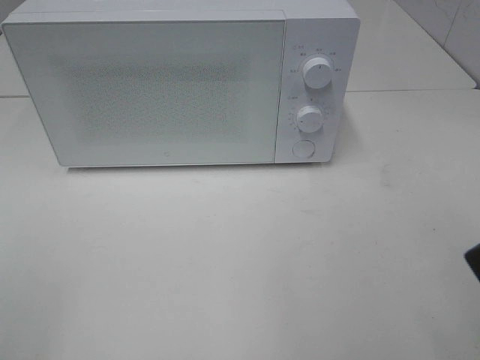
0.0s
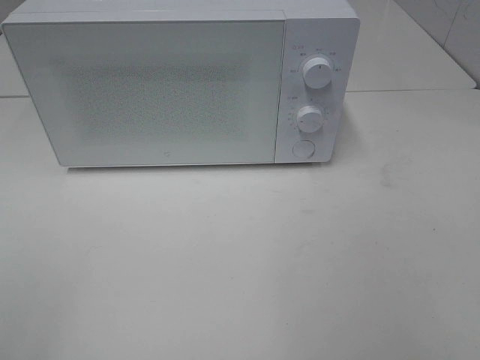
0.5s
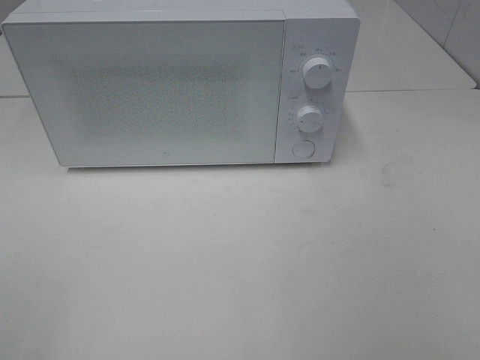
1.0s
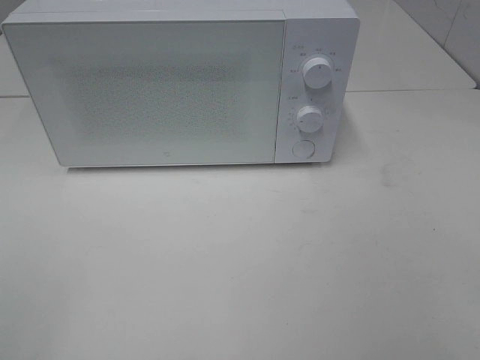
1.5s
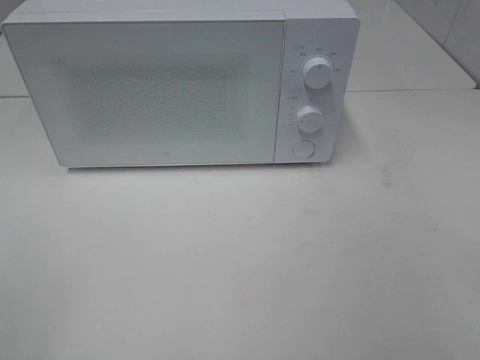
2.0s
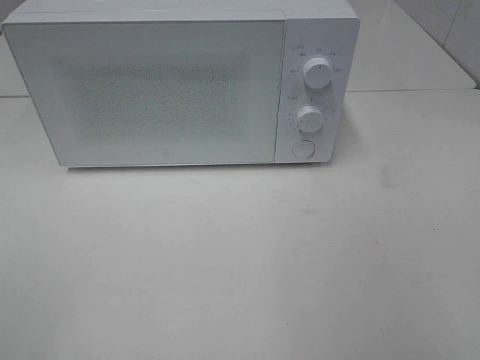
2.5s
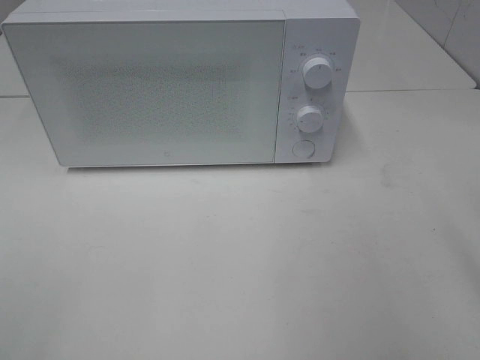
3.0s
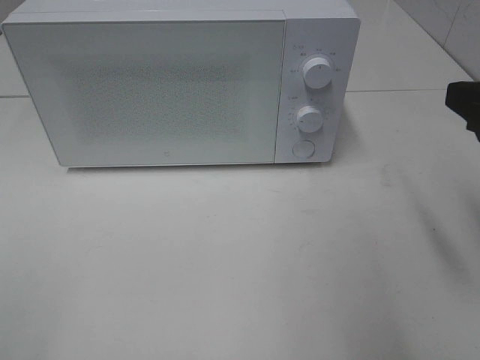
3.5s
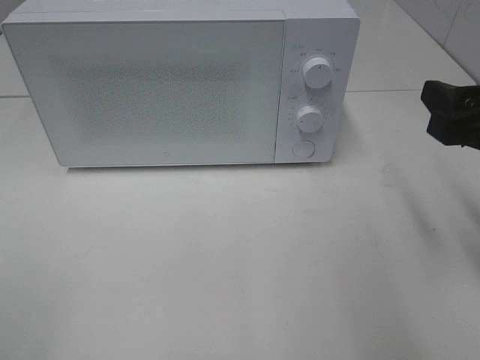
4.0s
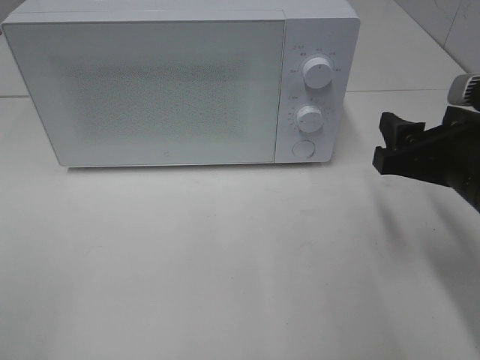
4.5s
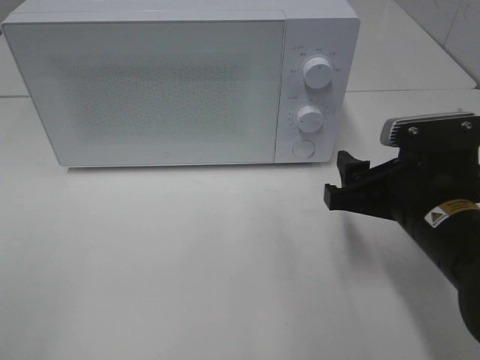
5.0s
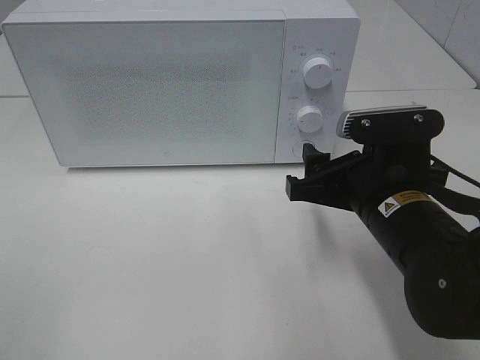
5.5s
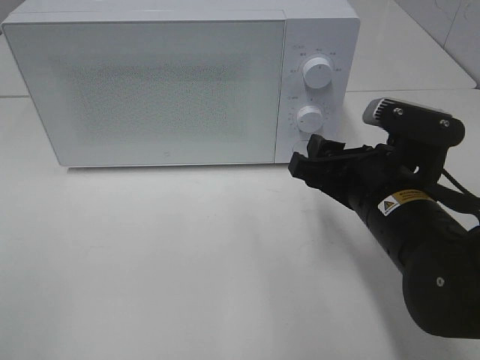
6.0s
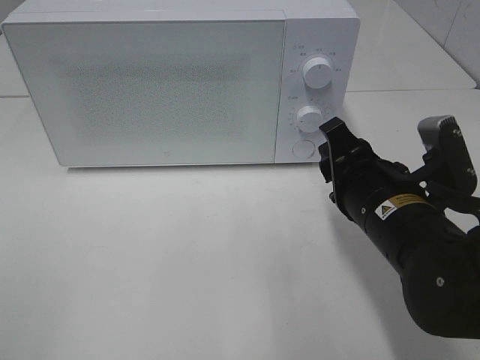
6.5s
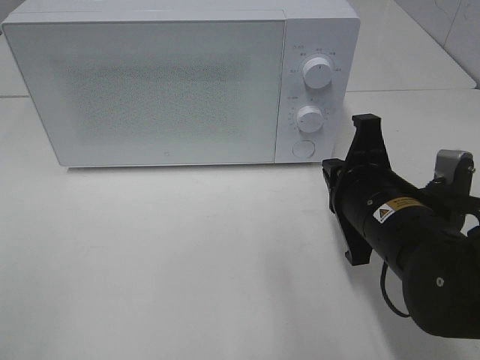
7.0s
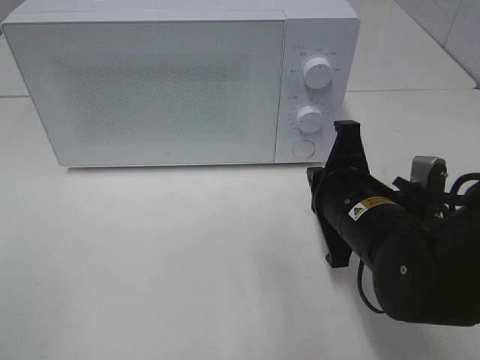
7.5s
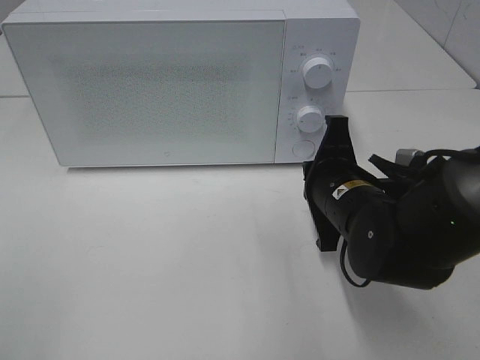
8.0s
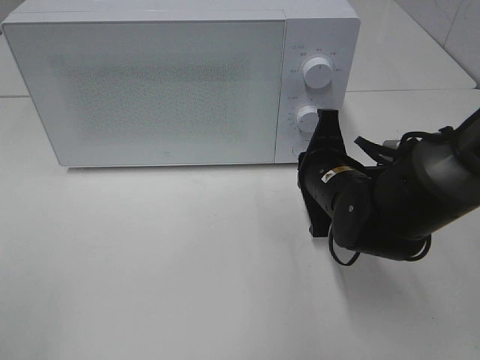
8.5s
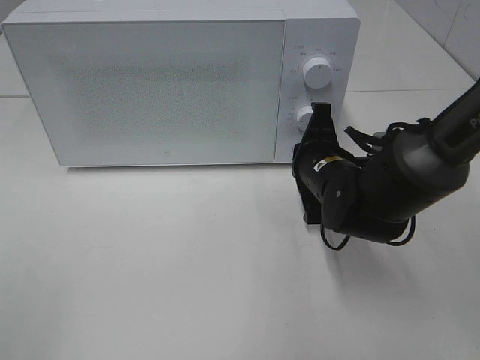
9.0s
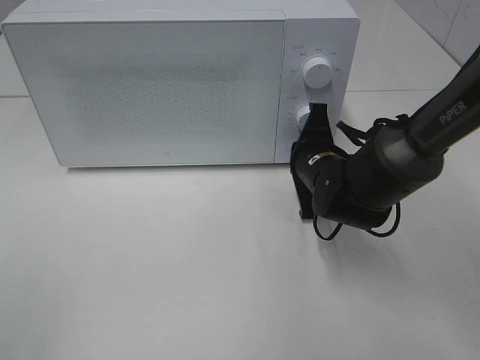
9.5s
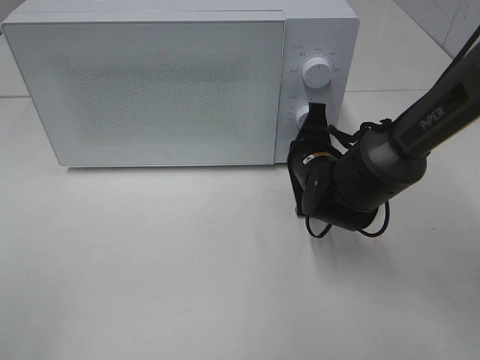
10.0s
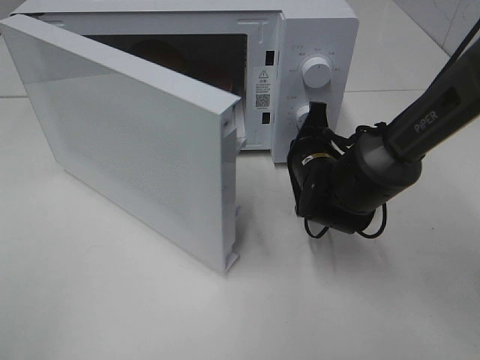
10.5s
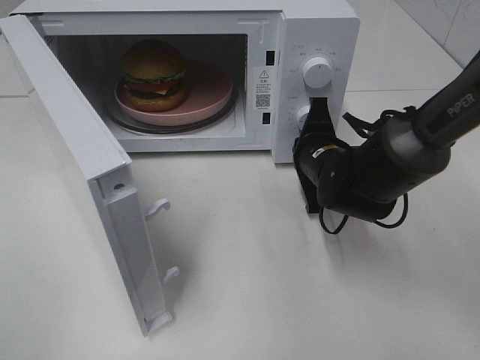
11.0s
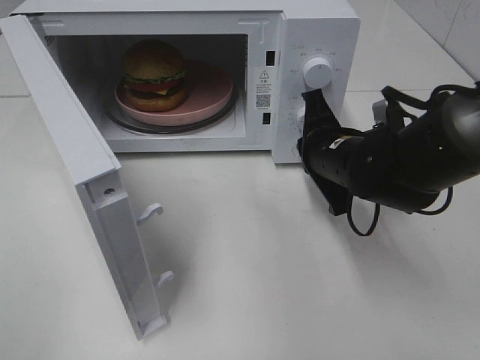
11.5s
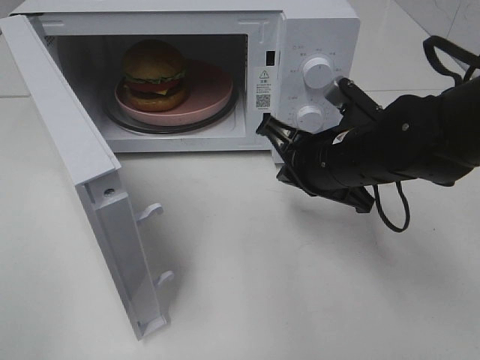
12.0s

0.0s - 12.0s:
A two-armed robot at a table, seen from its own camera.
Task of the whole recording: Heat the burger.
Step, 0.0s - 11.5s: Right hand: press the switch.
2.0s - 4.0s: The right gripper moves forward, some 20 cm.
4.0s - 6.0s: The right gripper is displaced to the left and downward by roughly 15 cm.
6.0s - 8.0s: The right gripper moves about 5 cm, and closes.
8.0s - 10.0s: The right gripper is displaced forward by approximately 10 cm.
10.0s - 12.0s: The right gripper travels upward and backward by some 10 cm.

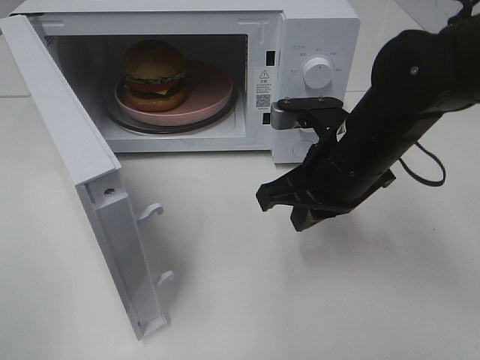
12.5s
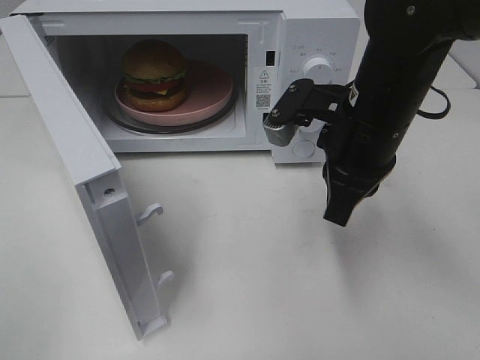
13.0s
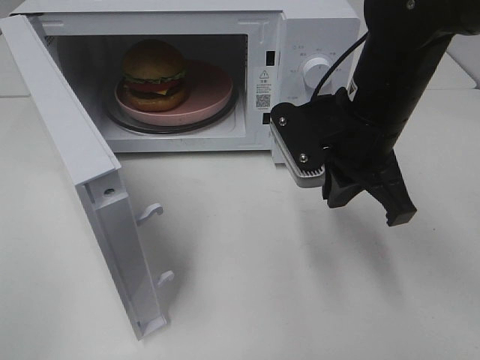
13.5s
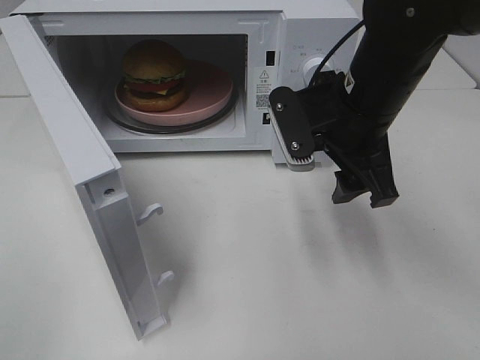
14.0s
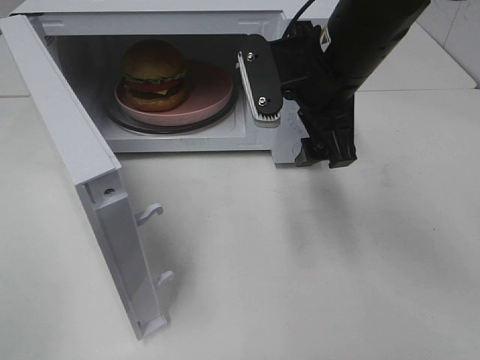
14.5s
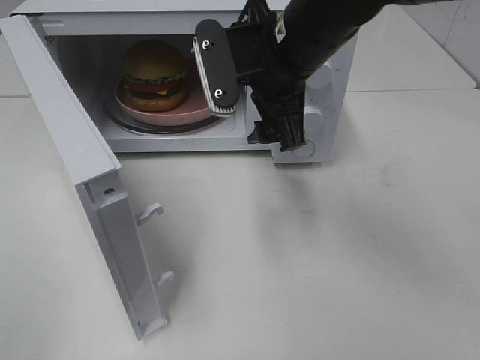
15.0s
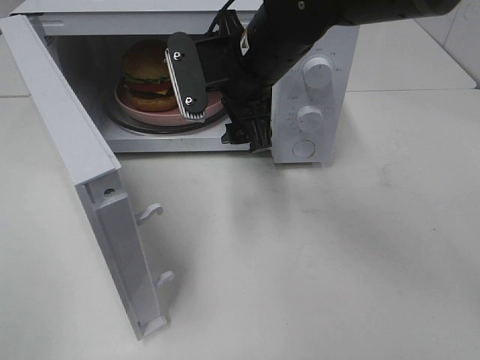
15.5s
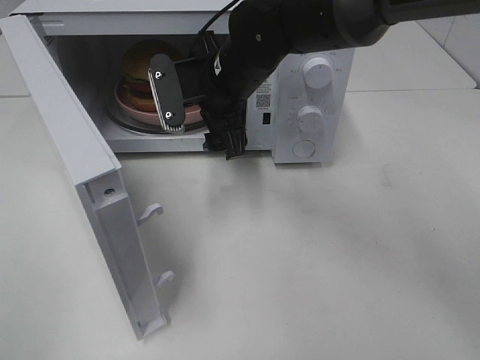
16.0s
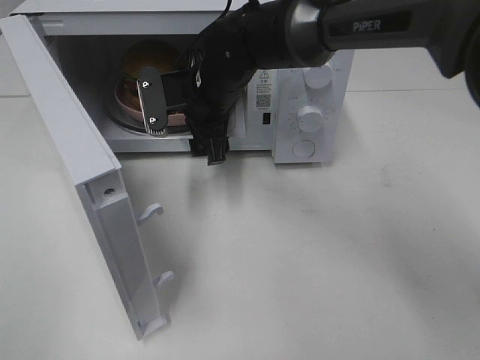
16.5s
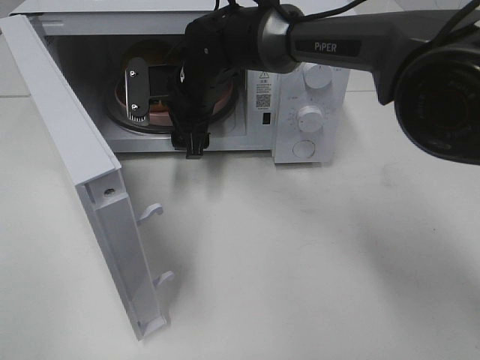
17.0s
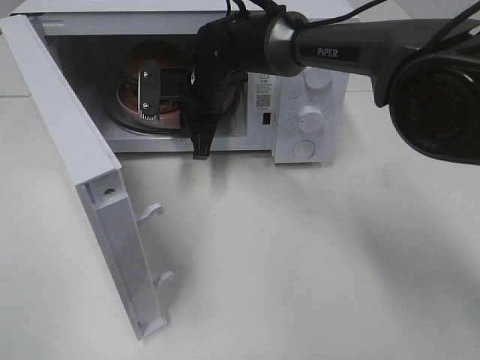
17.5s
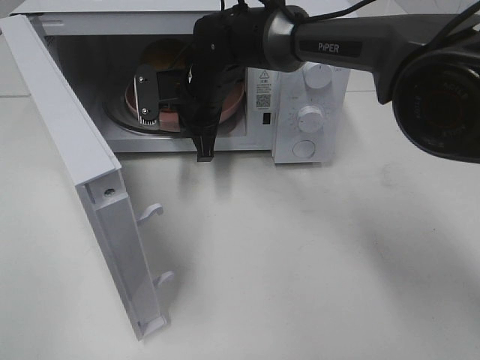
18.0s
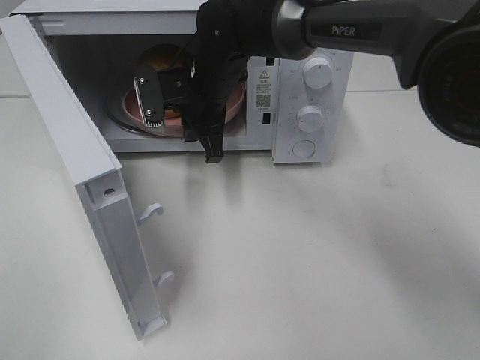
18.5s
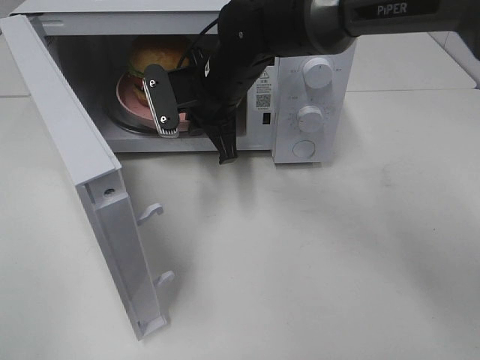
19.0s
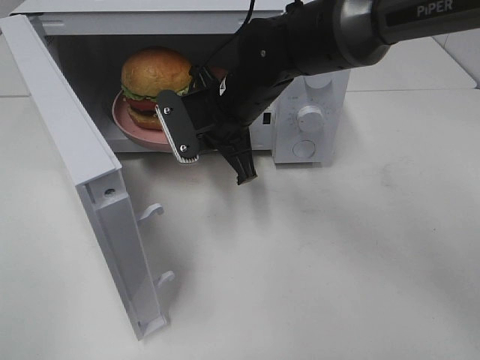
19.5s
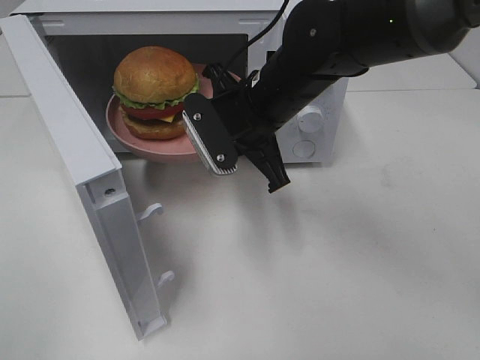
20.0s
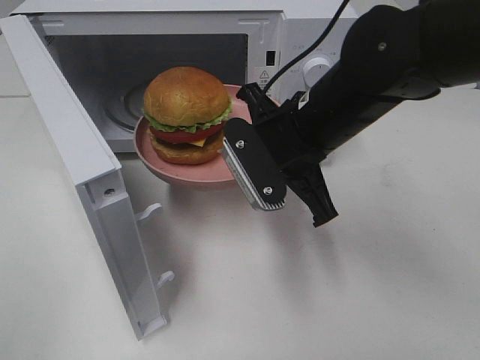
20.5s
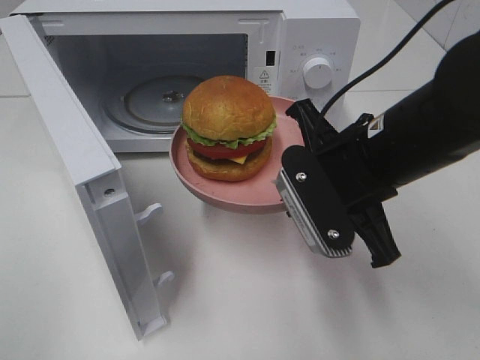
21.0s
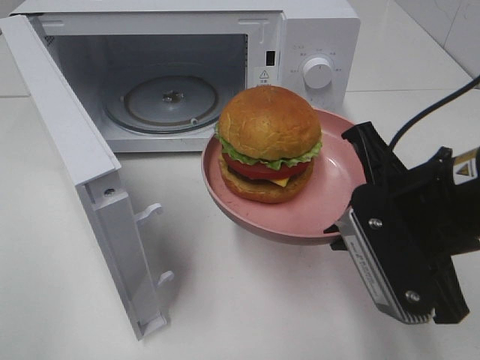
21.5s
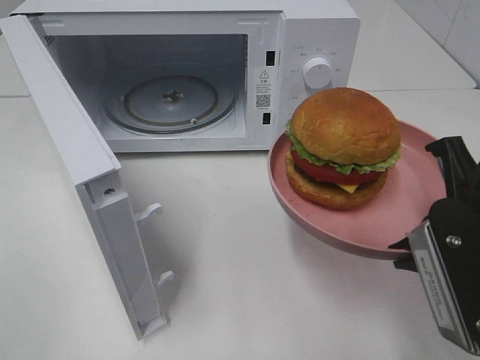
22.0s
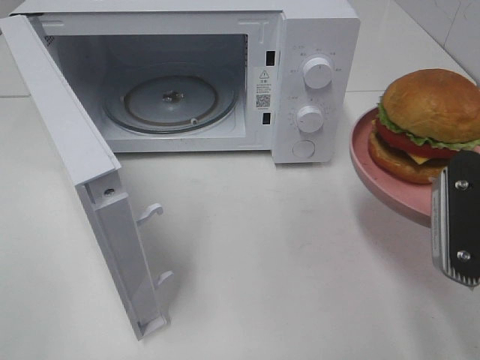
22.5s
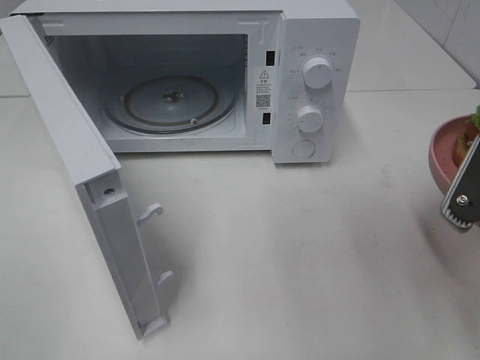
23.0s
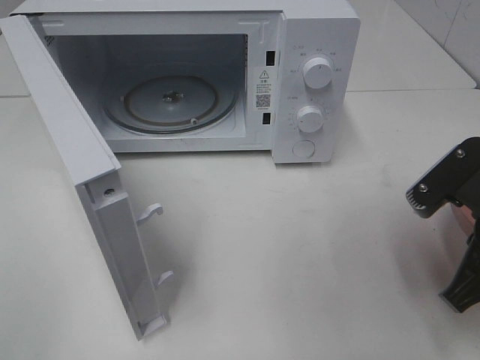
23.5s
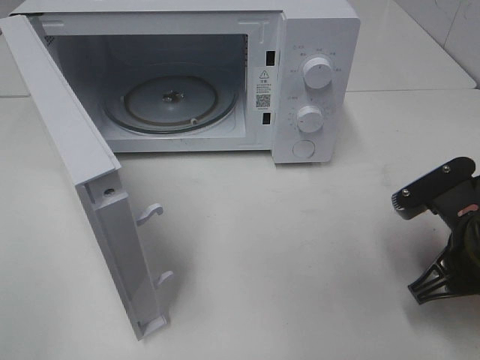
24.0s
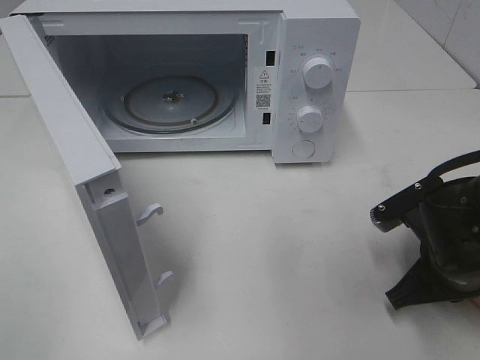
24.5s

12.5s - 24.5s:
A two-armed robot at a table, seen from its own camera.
Task of the whole recording: Heat the burger.
Step, 12.5s - 17.5s: Right hand: grab the plate with the hamburger.
12.5s - 14.5s: The right gripper travels upward by about 10 cm, and opens.
14.5s - 16.5s: The right gripper is displaced to the left, forward and downward by some 15 cm.
16.5s - 18.5s: The right gripper closes its fingers.
18.5s - 20.5s: The right gripper travels backward and to the right by approximately 15 cm.
20.5s - 22.5s: The right gripper goes roughly 20 cm backward and to the right.
22.5s - 24.5s: The right gripper travels downward and forward by some 15 cm.

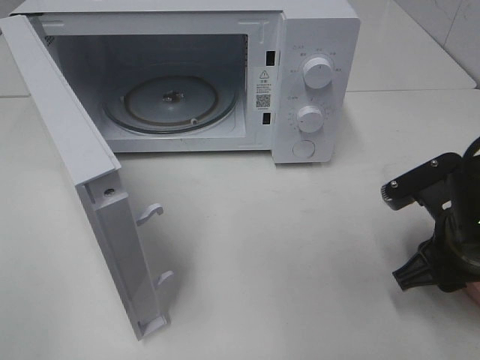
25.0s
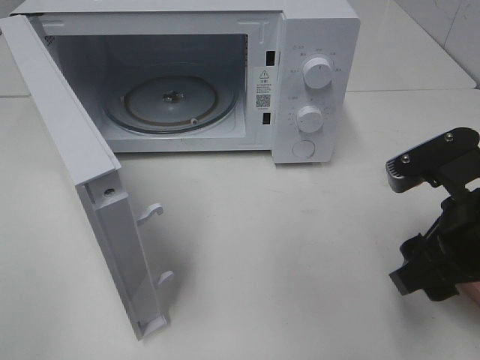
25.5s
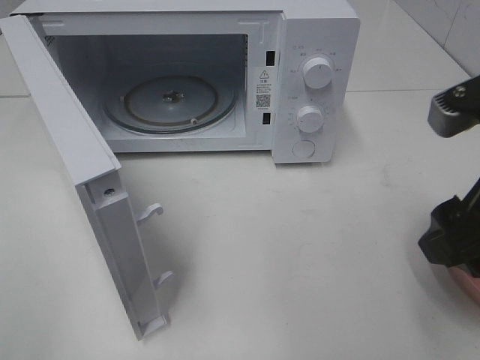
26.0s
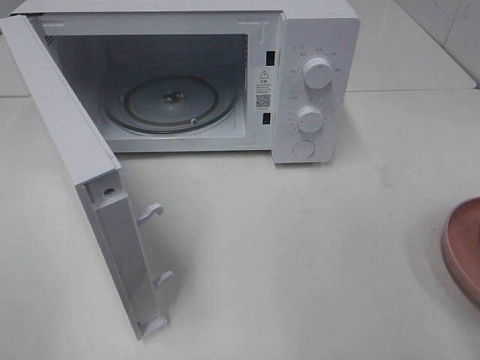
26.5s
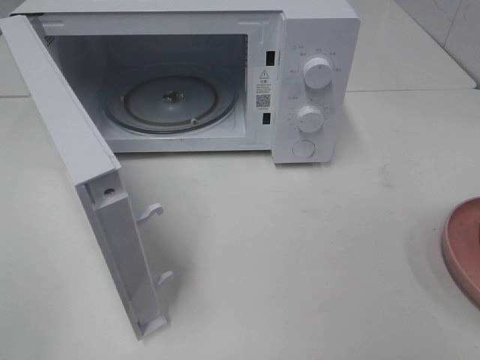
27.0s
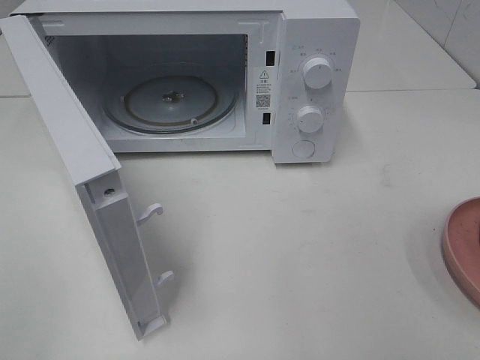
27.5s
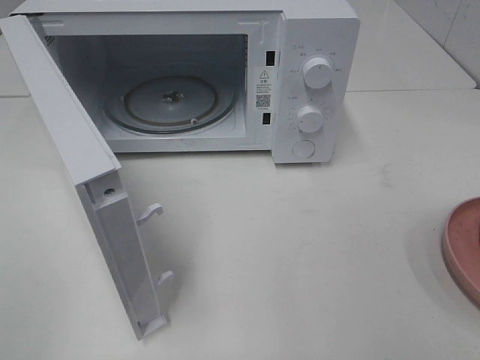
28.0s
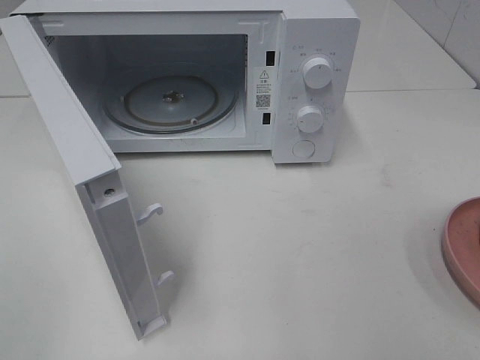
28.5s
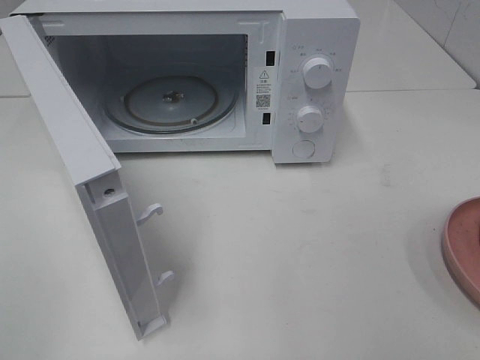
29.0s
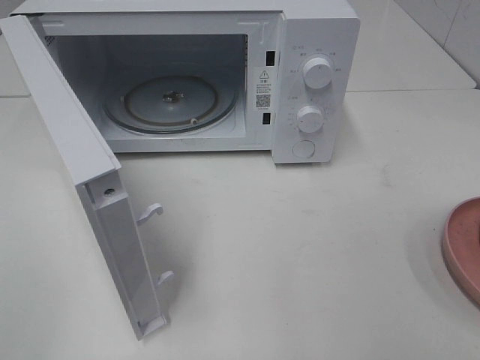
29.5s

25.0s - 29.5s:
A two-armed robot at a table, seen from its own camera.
Task of the whole recording: Heat the burger.
Step, 25.0s - 28.0s: Right hand: place the plate on the table.
25.0s - 27.0s: The right gripper moves upward and backward, some 25 cm.
